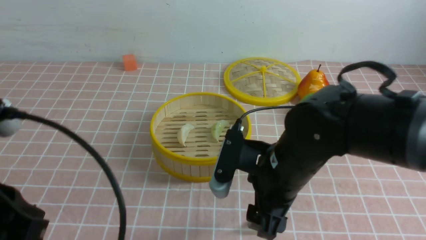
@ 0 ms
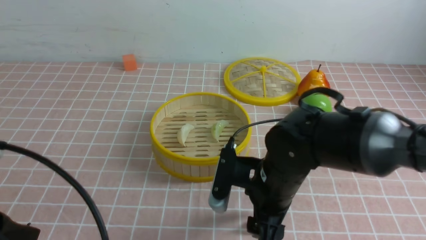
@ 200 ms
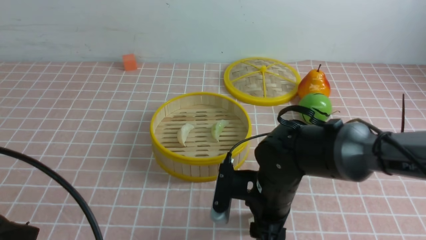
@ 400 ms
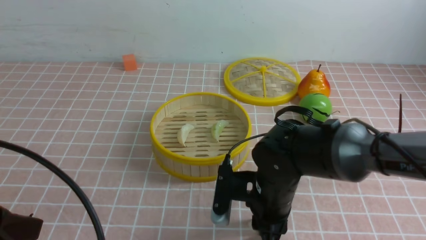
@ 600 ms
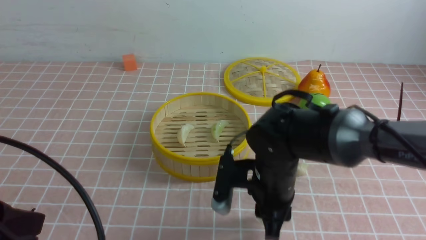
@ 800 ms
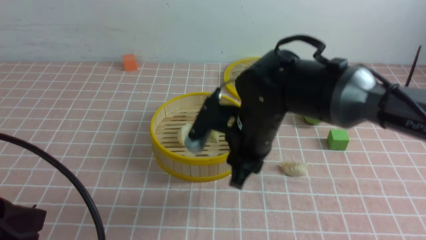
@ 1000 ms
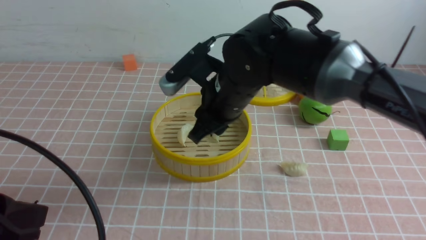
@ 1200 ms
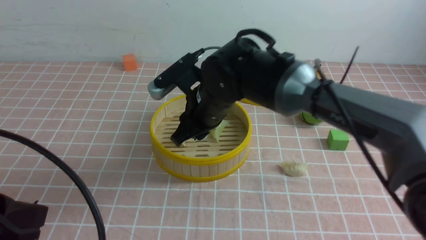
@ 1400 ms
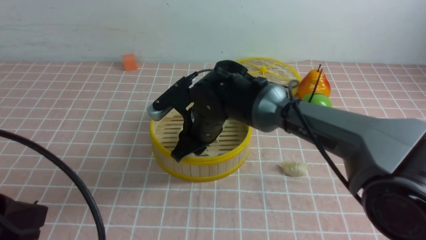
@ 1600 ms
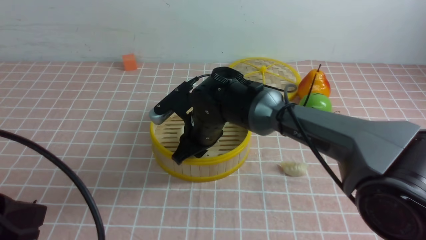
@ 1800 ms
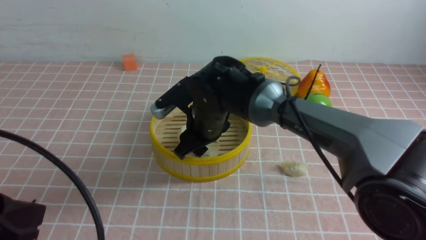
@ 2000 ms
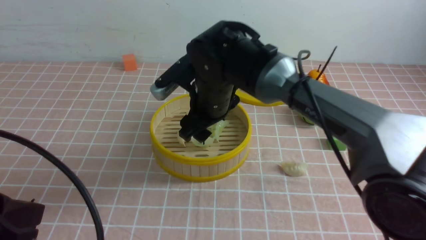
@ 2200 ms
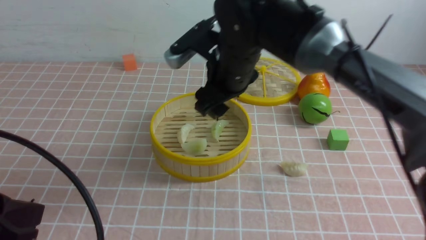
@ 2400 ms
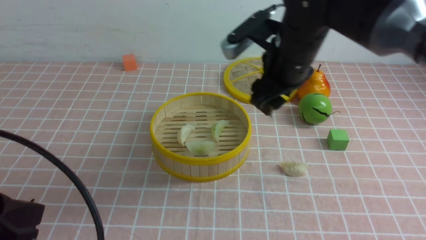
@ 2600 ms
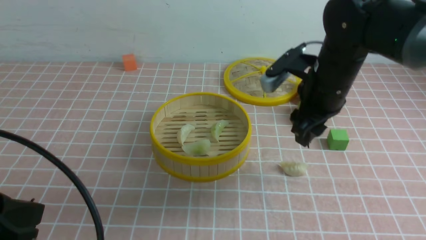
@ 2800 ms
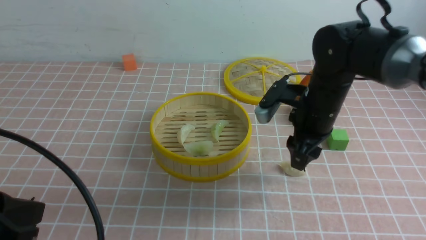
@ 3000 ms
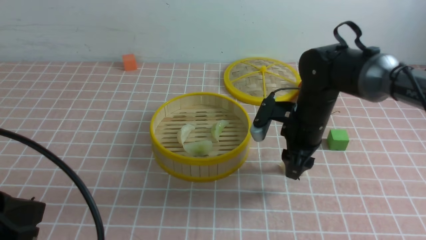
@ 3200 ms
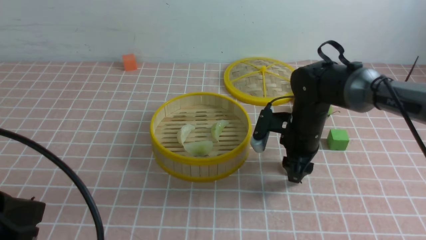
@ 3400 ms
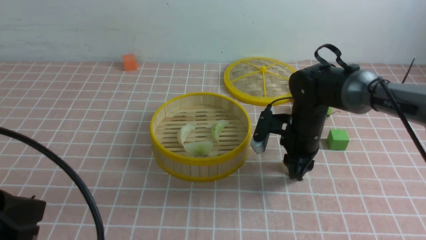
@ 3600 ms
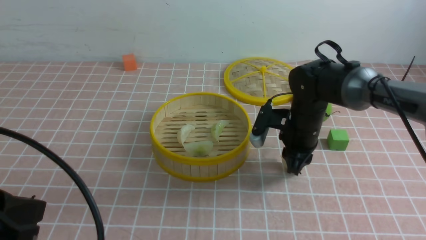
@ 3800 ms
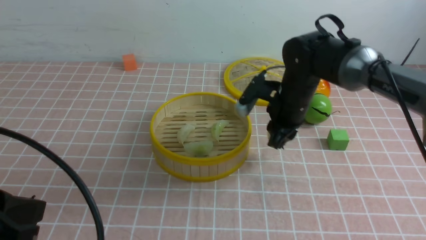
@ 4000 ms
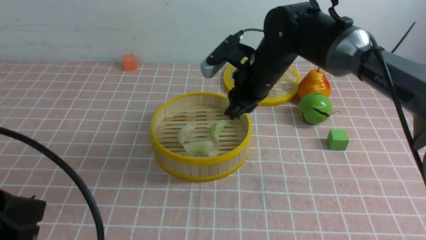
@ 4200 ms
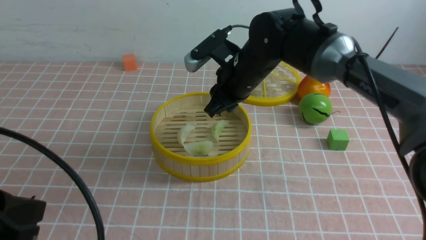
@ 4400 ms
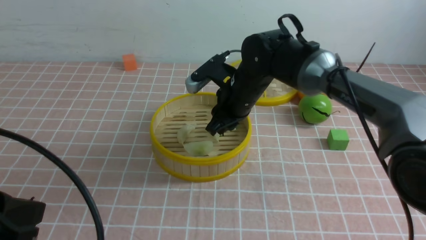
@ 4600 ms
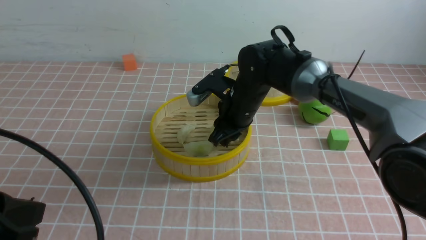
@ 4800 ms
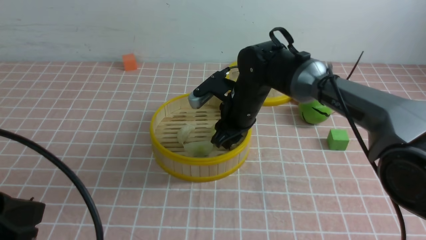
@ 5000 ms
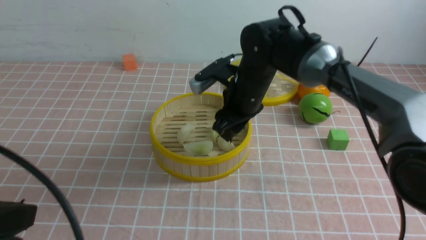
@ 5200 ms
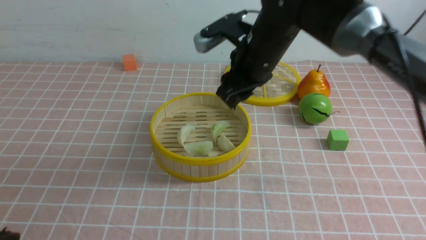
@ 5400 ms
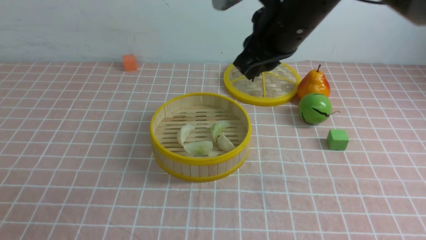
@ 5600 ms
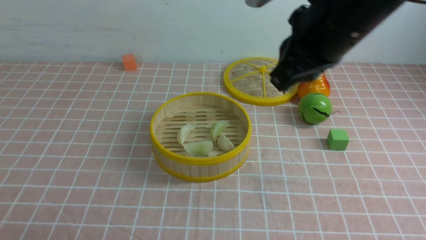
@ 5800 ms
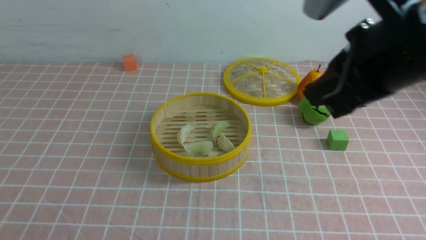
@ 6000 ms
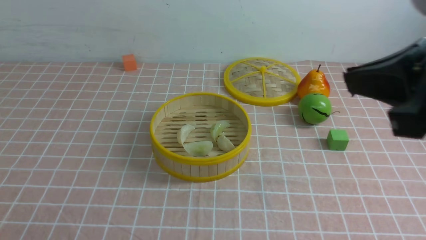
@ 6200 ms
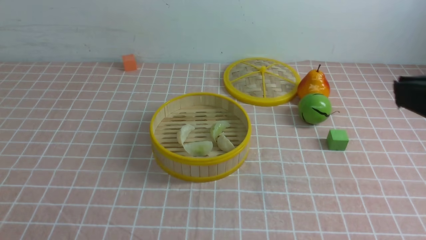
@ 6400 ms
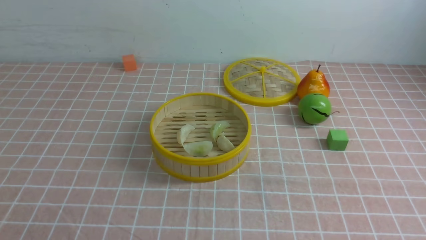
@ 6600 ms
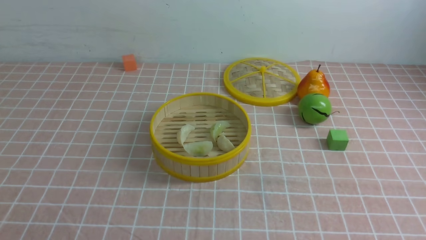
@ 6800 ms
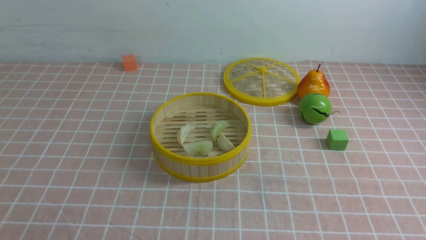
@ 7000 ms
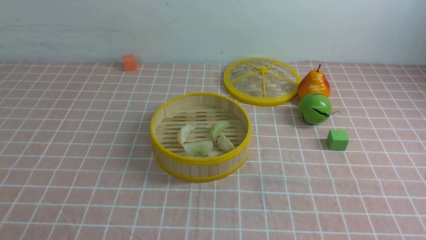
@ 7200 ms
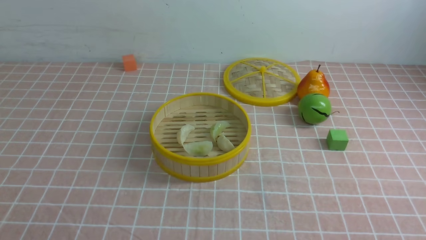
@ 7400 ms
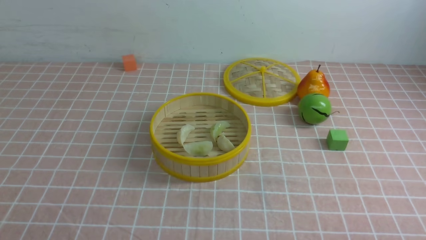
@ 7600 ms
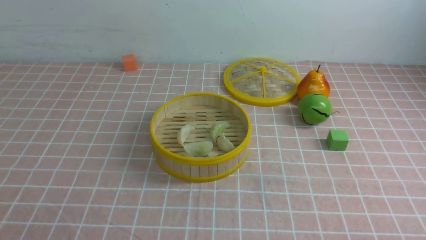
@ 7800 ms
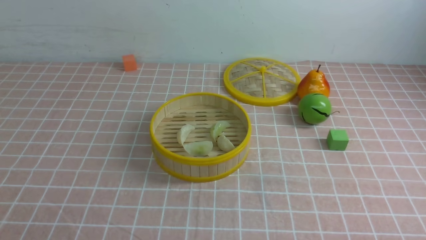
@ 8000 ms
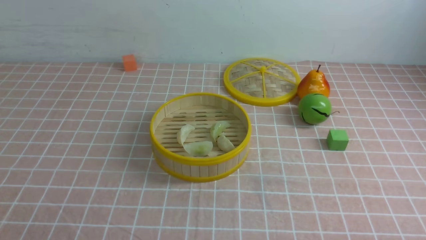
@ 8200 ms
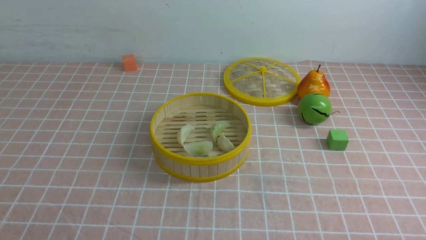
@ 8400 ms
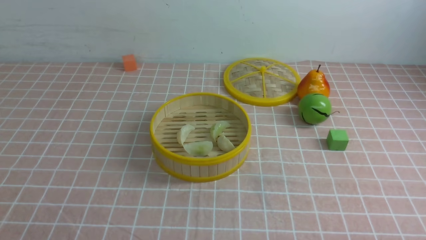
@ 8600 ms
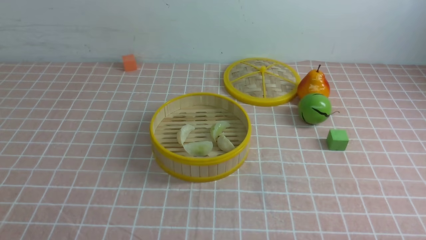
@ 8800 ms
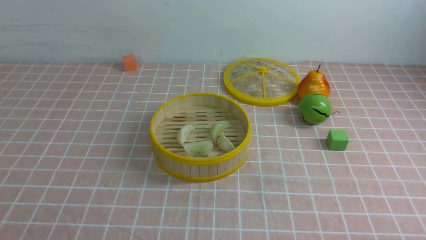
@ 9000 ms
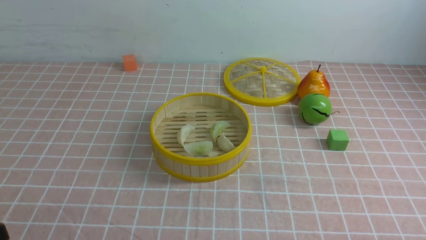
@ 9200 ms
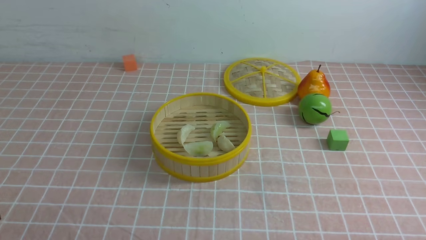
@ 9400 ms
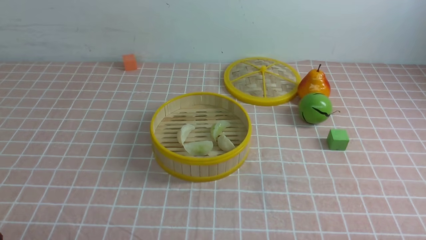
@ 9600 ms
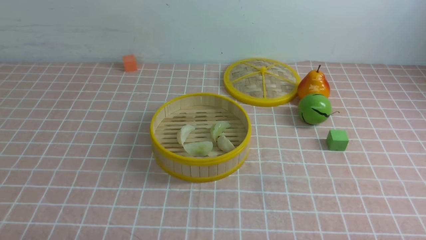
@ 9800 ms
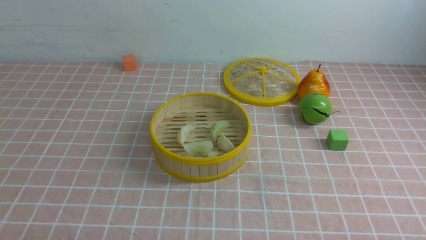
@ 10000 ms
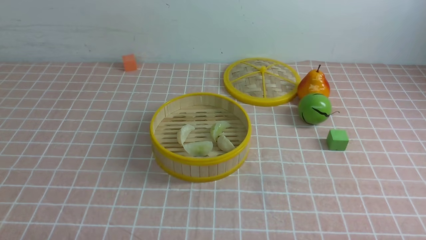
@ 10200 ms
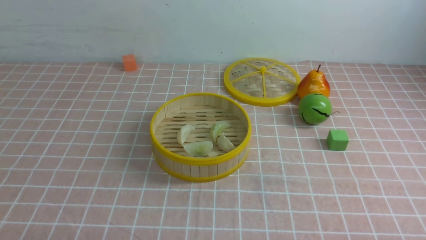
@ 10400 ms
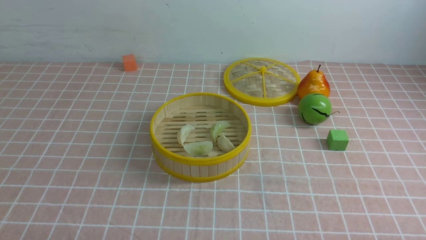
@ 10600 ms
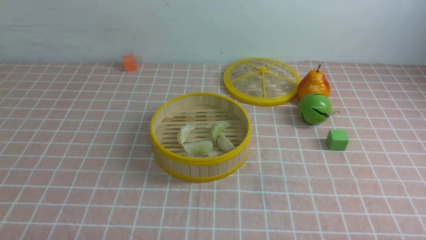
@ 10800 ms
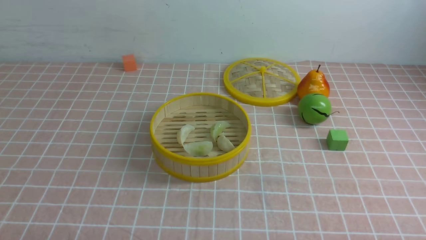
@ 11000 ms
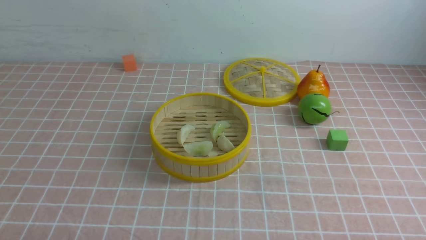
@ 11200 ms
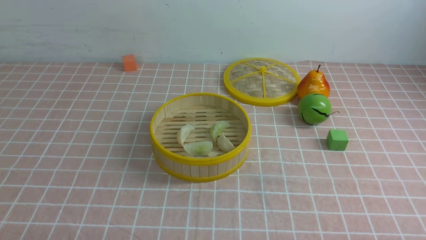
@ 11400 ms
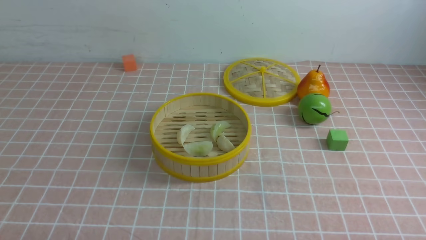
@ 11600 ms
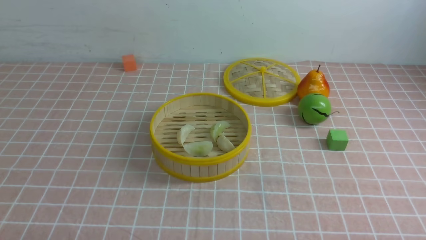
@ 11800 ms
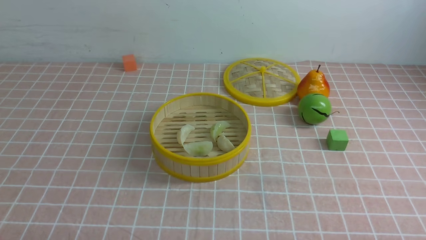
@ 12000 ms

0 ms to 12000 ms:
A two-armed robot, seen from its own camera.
Task of the whole recording: put the dumplings into the steamer on the table with the pink tablecloth.
Step, 1000 ms to 2200 ms: use the right arm to put the dumpling into the steamer.
Step, 2400 ms to 3800 ms: use the right arm to grab a dumpling.
Step, 4000 ms to 5600 ms: use the right arm to put the dumpling into the steamer.
0 ms to 1600 ms: The left gripper moves about 5 cm. The right gripper goes approximately 15 cm forward and to the left.
1600 ms to 3000 ms: The right gripper heads to the right, covering roughly 15 cm.
3000 ms to 4400 ms: The right gripper travels to the left by some 10 cm, moves about 10 cm downward and comes back, and closes up.
4400 ms to 6000 ms: The right gripper goes roughly 25 cm backward, upward and to the right, and closes its fingers, while the left gripper goes about 10 cm backward.
6000 ms to 7600 ms: The right gripper moves downward, backward and to the right, roughly 30 cm.
10400 ms to 12000 ms: Both grippers stay put.
